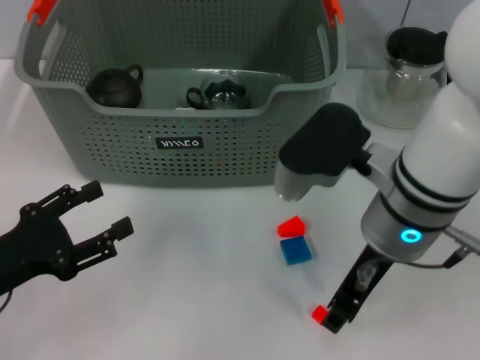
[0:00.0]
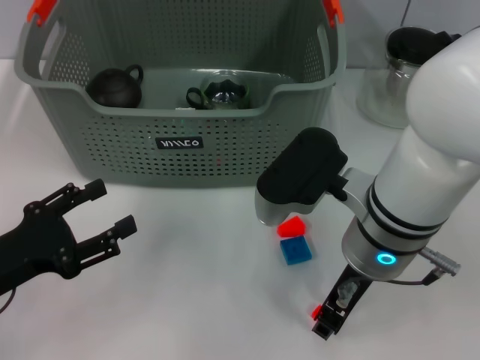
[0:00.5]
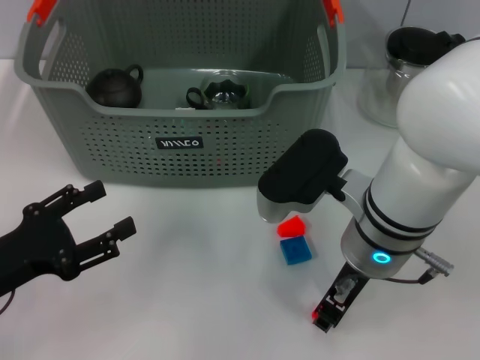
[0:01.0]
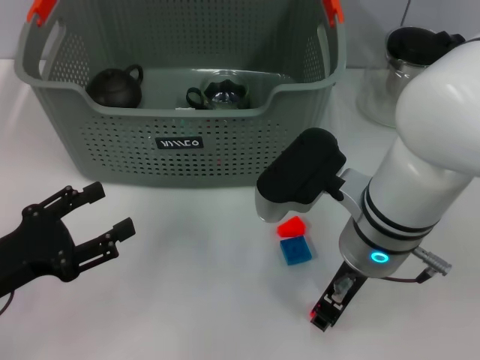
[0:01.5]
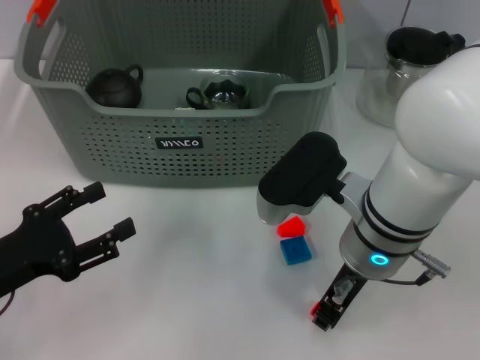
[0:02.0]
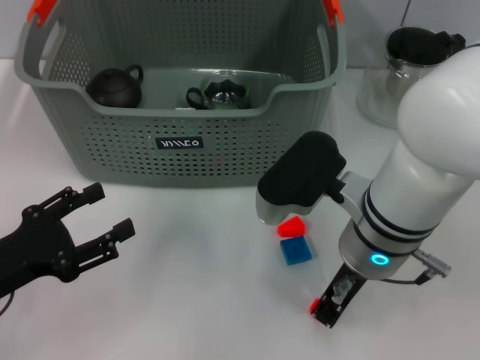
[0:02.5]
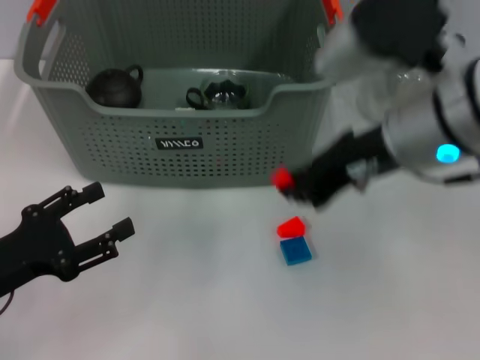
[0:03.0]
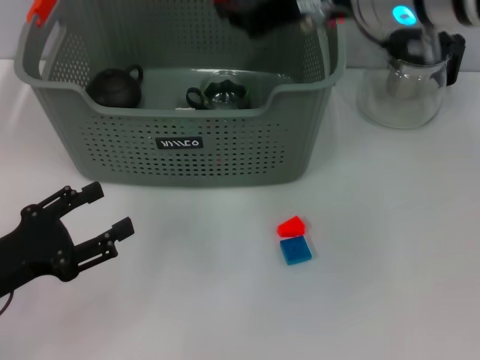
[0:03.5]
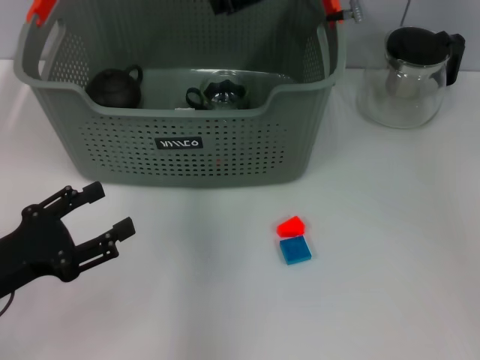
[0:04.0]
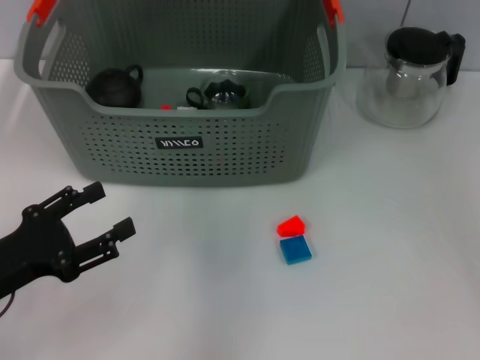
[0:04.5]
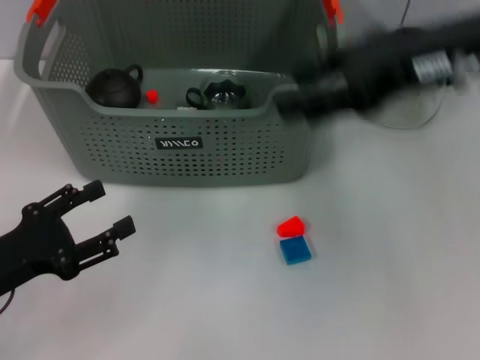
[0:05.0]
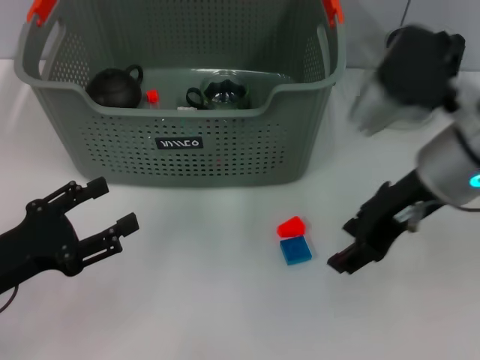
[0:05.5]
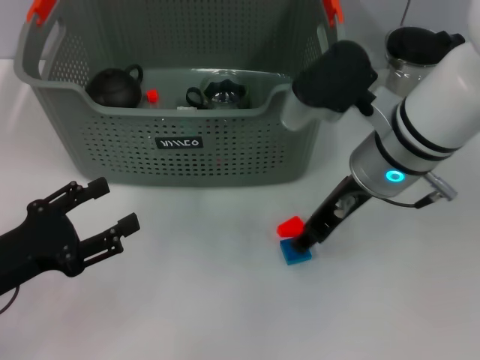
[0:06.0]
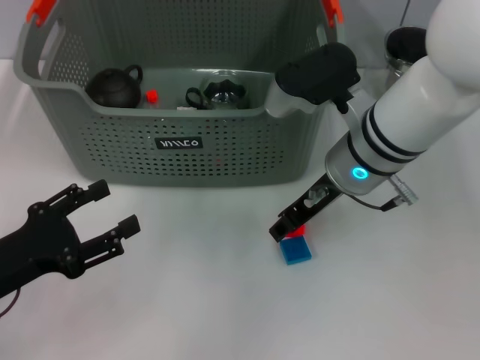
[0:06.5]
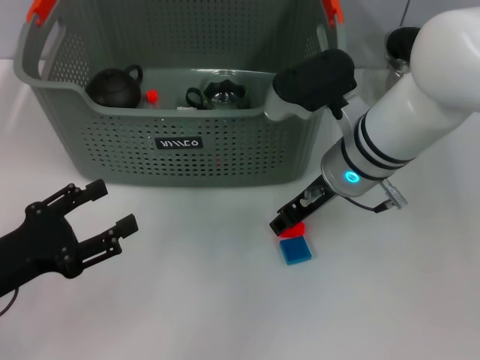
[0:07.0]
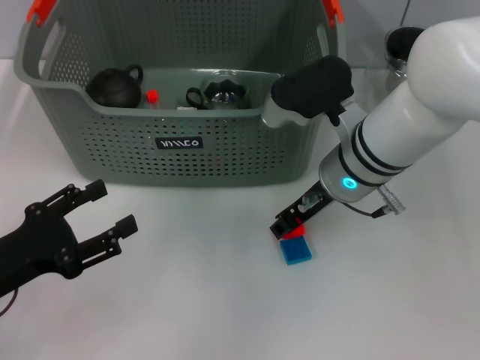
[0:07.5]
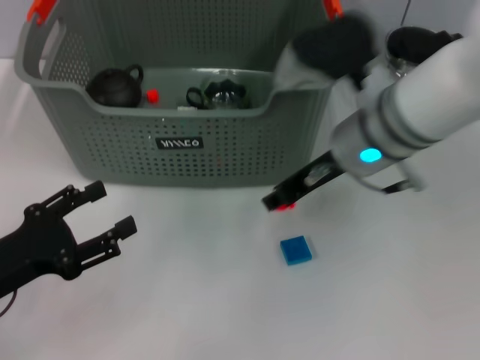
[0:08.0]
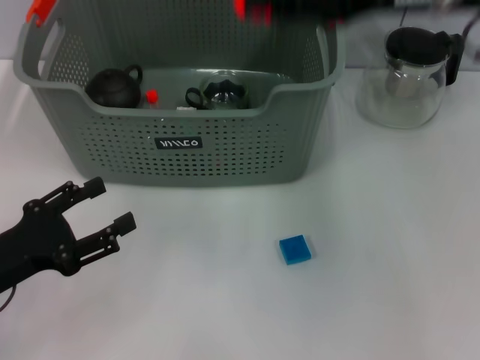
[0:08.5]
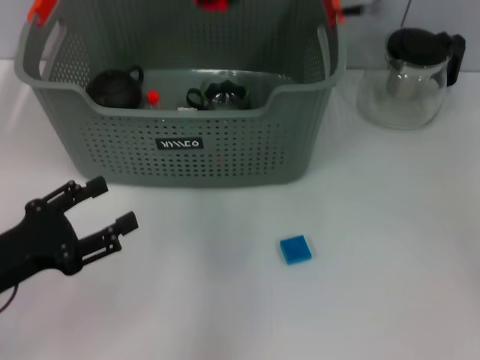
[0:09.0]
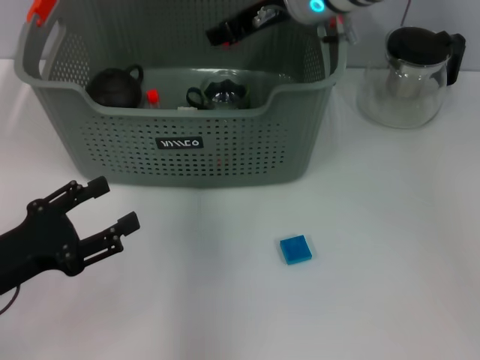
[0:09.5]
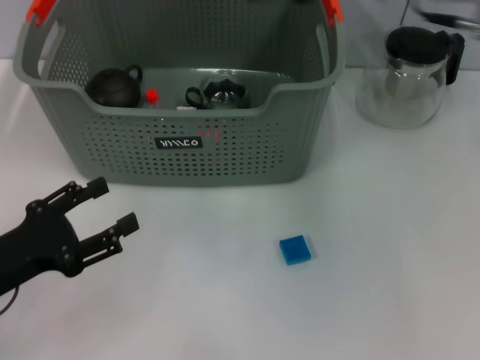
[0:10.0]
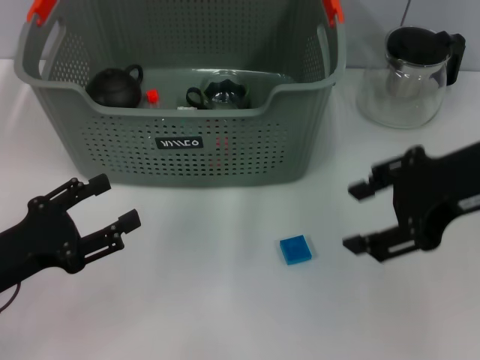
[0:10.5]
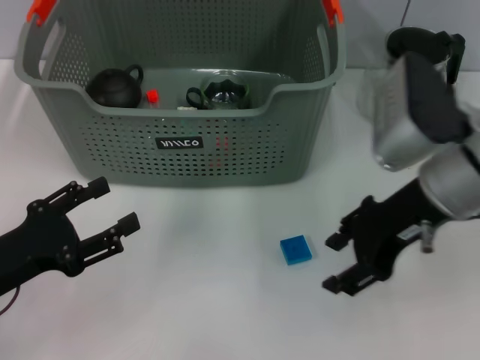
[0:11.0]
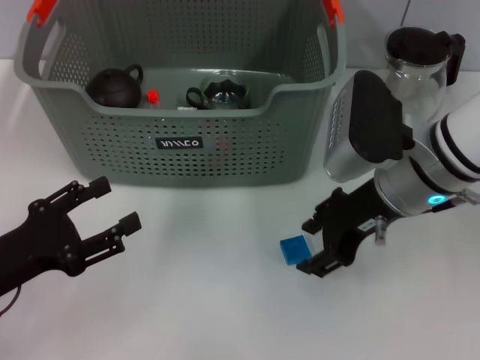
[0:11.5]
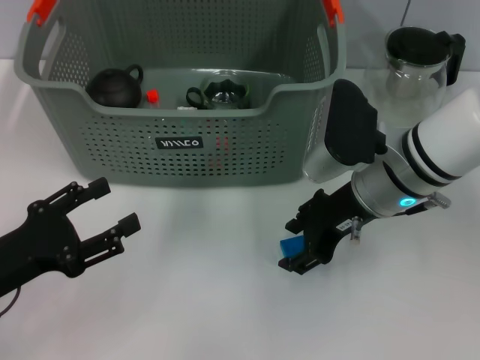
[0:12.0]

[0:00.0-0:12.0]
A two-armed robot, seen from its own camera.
Task of the whole recording: pick up the teacup on the table and place it into the storage bin, pick up the block on the table and place it into the storage bin.
Step, 0:00.0 to 0:02.0: Grasp the orange block with right gripper.
Step, 0:03.0 to 0:04.0: Place the orange block in the storage box with right gripper.
Step, 0:04.5 to 0:07.5: Grasp the orange block with right gripper.
Step, 0:08.0 to 0:09.5: Place the orange block in the storage box with right gripper.
0:00.0 to 0:02.0: The grippers make only small movements.
0:02.0 to 0:04.0: The right gripper heads forward and upward, covering some 20 cm.
0:04.0 to 0:06.0: The right gripper goes roughly 15 cm backward and downward, and opens.
0:06.0 to 0:08.0: The grippers stay close to where they were, moving slightly.
0:08.0 to 0:10.0: The right gripper goes up and down, approximately 15 cm each way, reversing 2 times, and opens up.
0:10.0 to 0:12.0: The right gripper heads downward, covering some 15 cm.

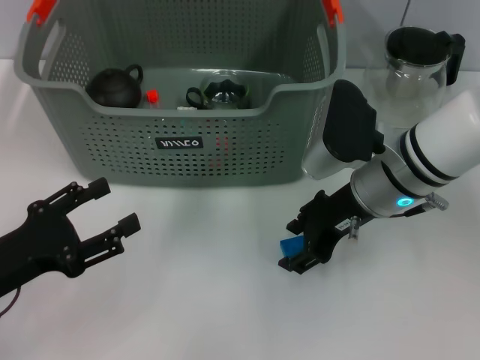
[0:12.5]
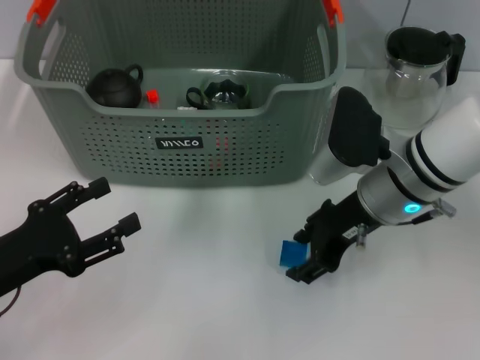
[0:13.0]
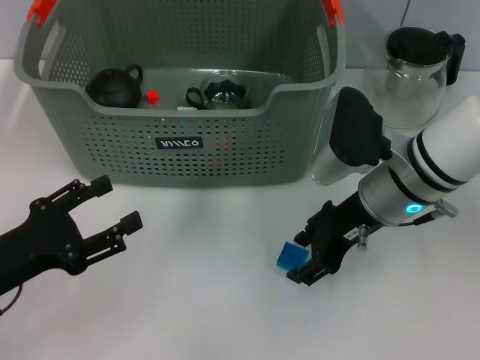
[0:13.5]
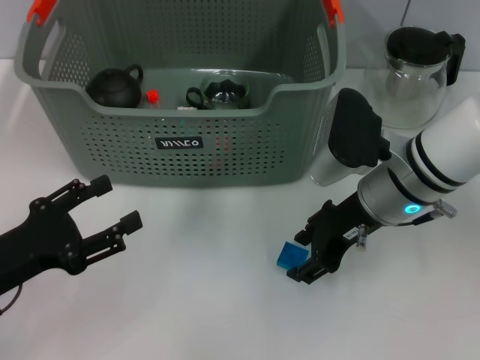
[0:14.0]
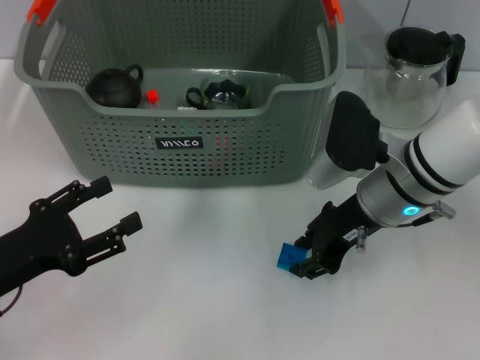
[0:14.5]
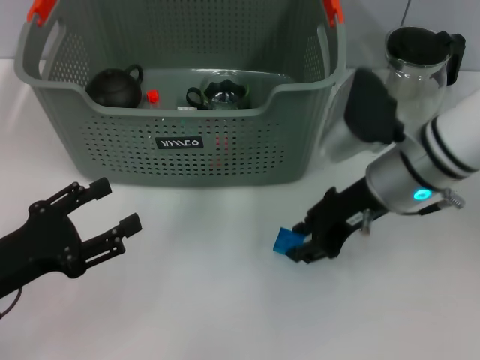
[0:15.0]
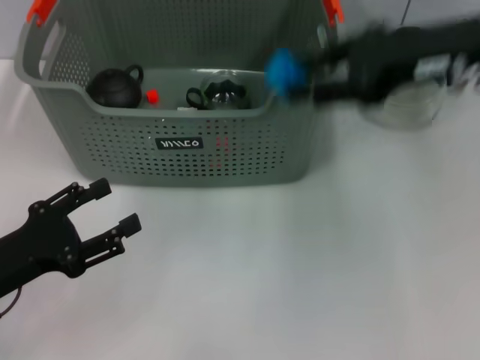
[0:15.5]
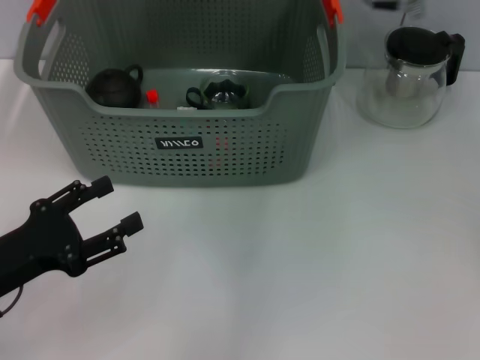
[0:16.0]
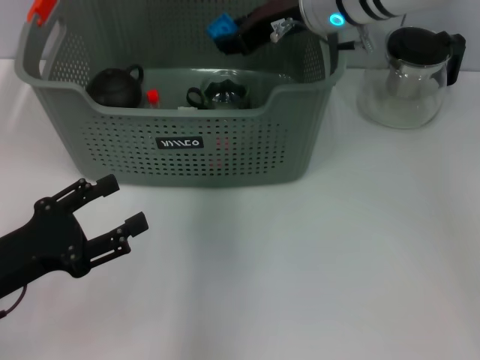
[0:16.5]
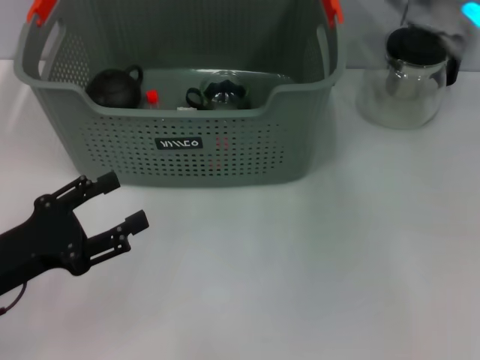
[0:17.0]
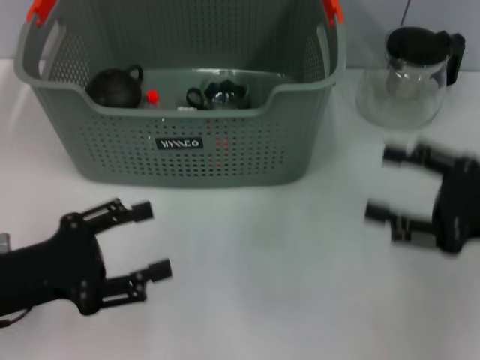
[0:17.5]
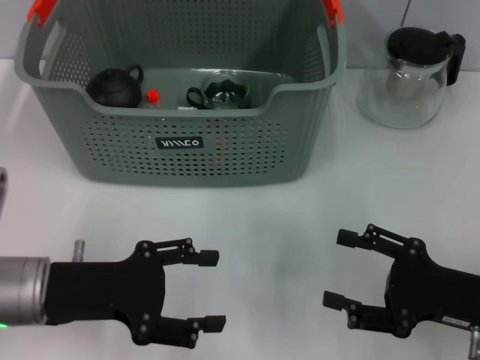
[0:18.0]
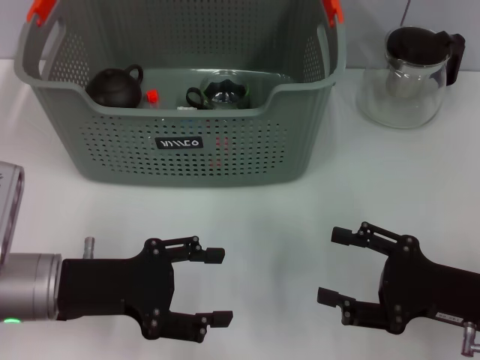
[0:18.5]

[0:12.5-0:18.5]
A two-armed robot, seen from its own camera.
Task of the whole recording: pick up the teacup on the table and place it into the storage bin, pick up the block on the table and place it into the storage bin.
Step, 0:12.5 to 0:14.5: Grasp the dark blue block with right gripper.
Step, 0:15.0 to 0:16.5: Place the dark blue block in the storage box with right gripper.
0:12.5 to 0:14.5: Neither gripper changes place.
0:14.5 to 0:16.5: The right gripper is displaced upward, forward and to the left by about 15 cm.
0:16.5 to 0:18.5: The left gripper travels to the right by approximately 5 cm; the right gripper travels backward, to the right and downward by roughly 35 cm, and opens up.

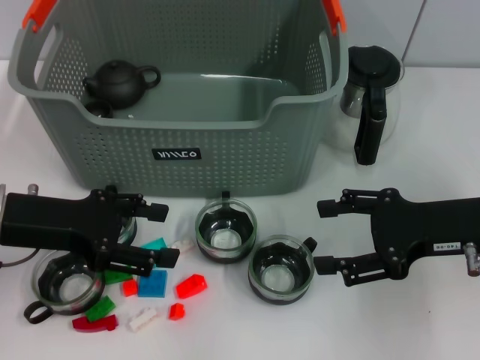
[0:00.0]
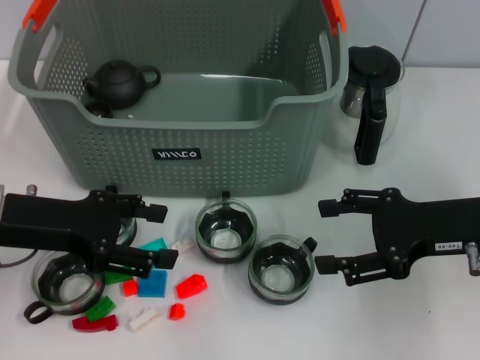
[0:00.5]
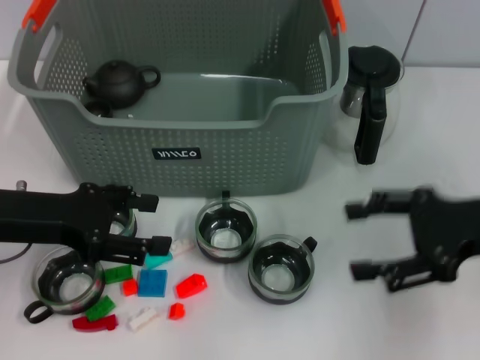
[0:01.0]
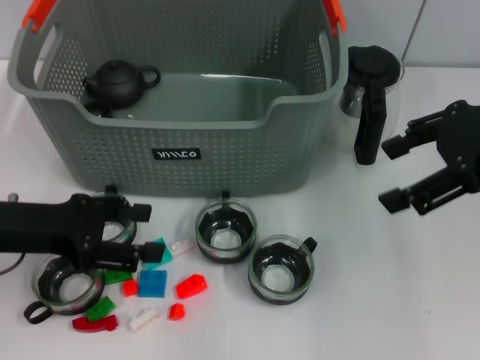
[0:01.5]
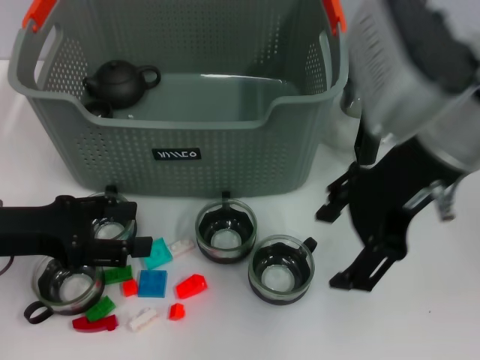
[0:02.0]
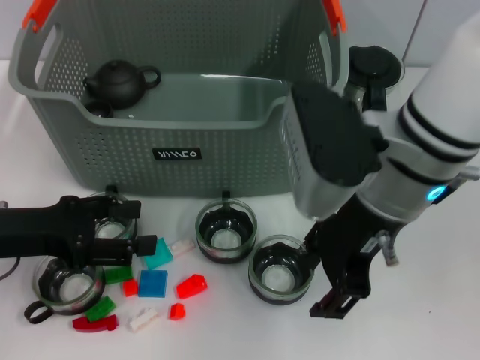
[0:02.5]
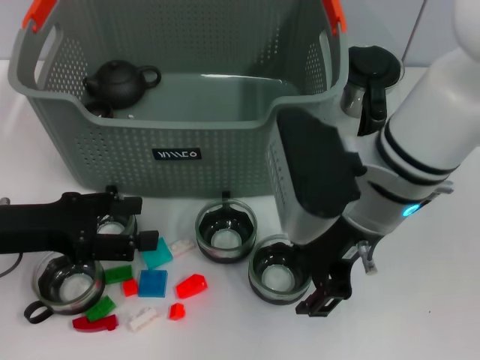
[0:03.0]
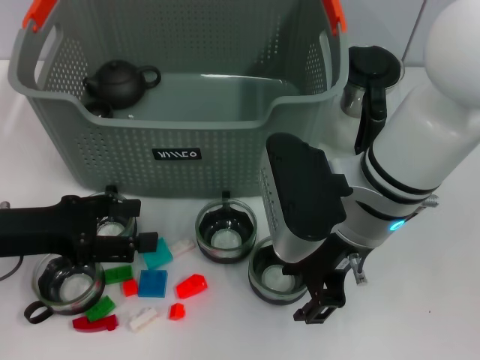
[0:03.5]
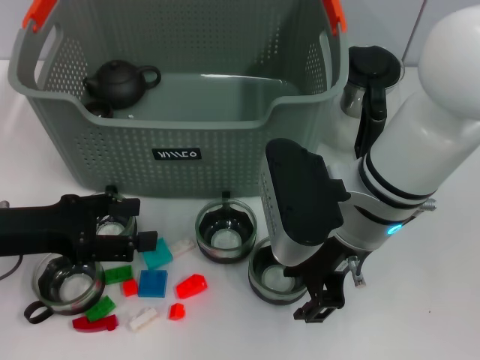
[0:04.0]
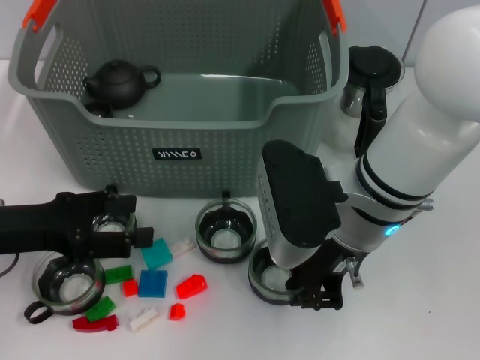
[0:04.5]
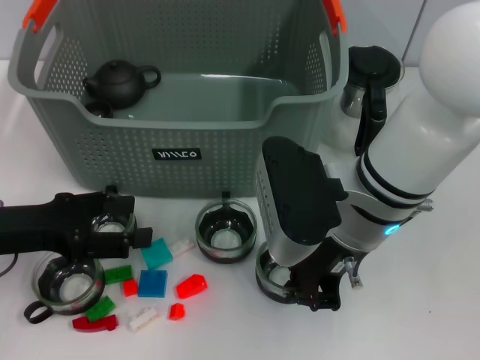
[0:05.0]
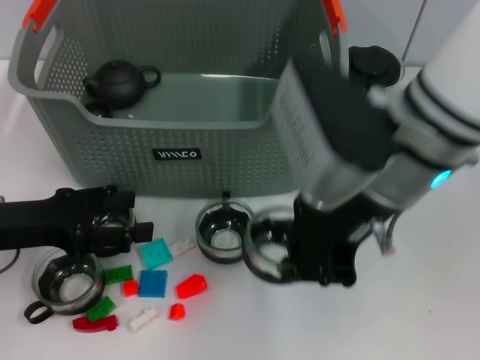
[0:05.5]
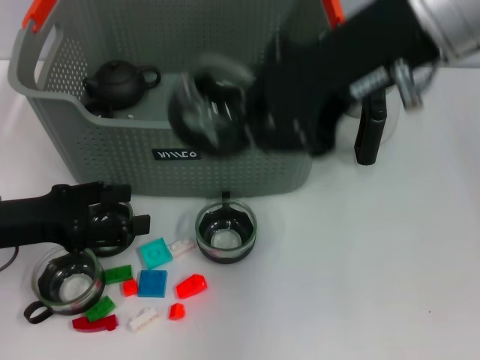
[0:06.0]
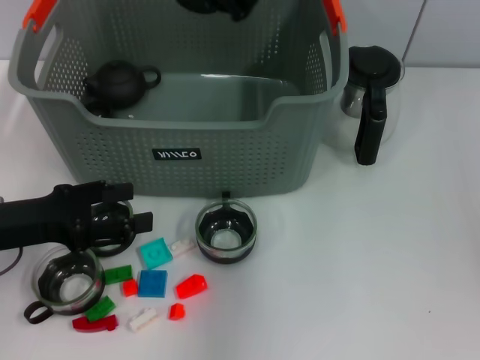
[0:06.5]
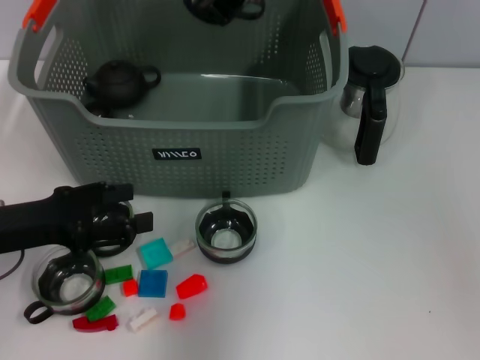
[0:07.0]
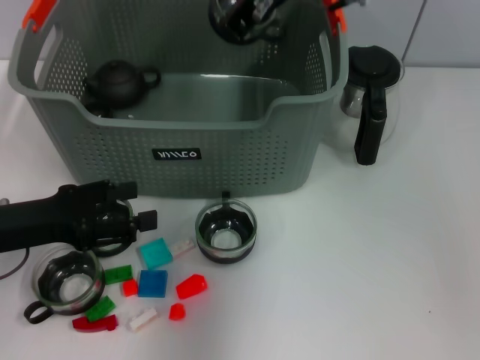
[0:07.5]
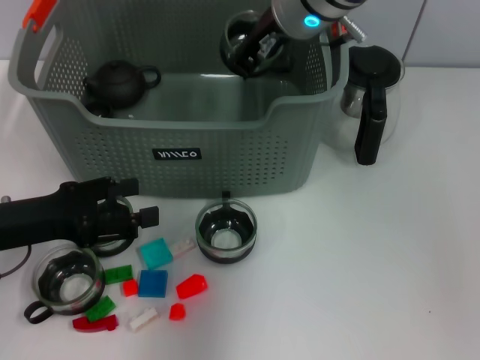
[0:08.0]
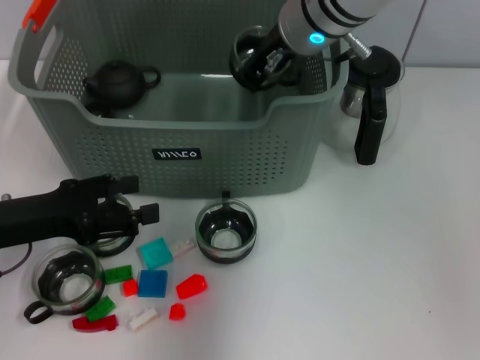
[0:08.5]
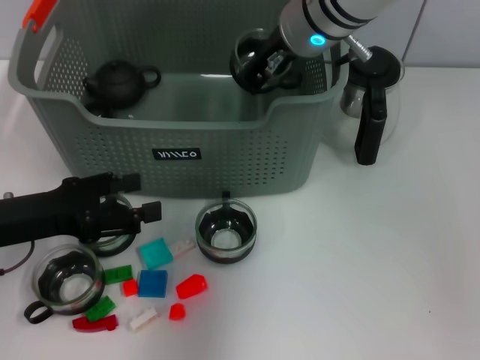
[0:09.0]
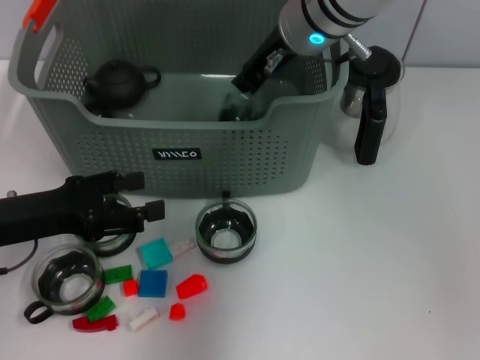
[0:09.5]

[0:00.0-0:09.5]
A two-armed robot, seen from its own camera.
Task of the whole recording: pick up the teacup on the table and place it into the storage bin, pick up the block on the table and place it into the storage bin.
Step, 0:00.0 to 0:05.0: Grasp the cup with right gripper.
0:00.0 to 0:02.0: The right gripper travels upward and to the left by approximately 20 cm.
0:02.0 to 0:04.0: The right gripper heads downward, covering roughly 10 cm.
0:04.0 to 0:05.5: The right gripper is displaced upward by approximately 10 cm, and closes its fingers.
0:05.5 to 0:07.5: The right gripper moves forward, roughly 15 cm.
0:07.5 to 0:09.5: The right gripper heads downward, covering approximately 5 cm.
